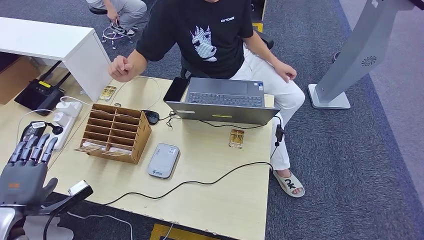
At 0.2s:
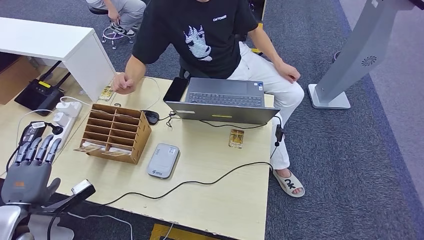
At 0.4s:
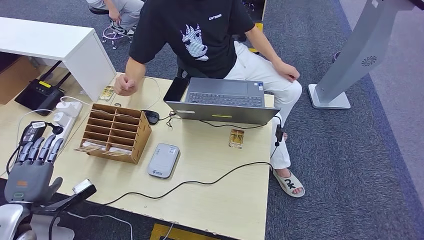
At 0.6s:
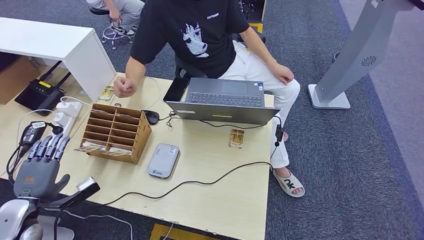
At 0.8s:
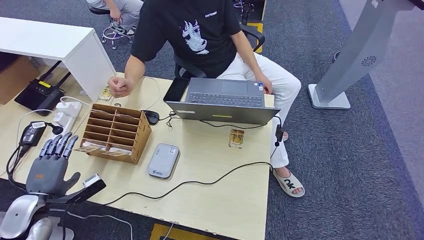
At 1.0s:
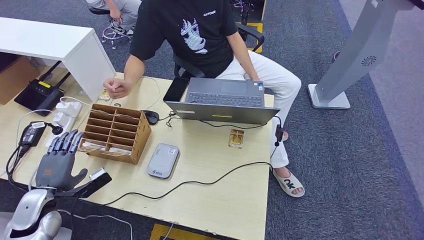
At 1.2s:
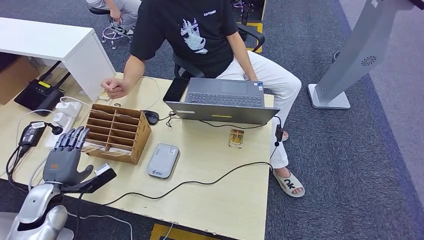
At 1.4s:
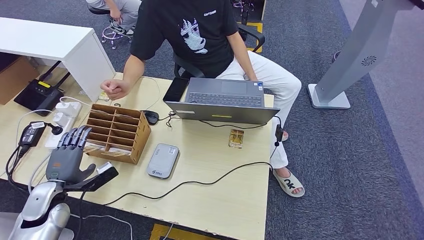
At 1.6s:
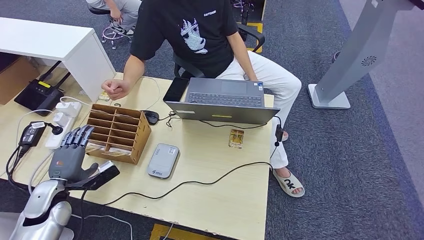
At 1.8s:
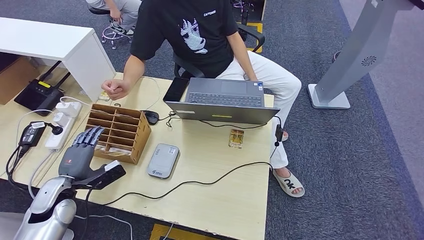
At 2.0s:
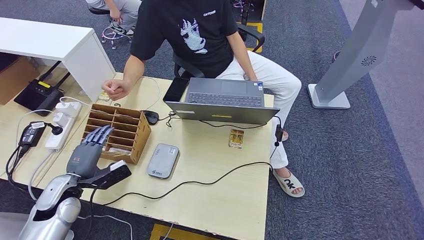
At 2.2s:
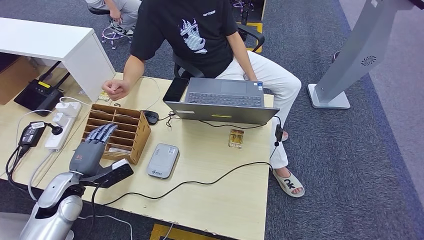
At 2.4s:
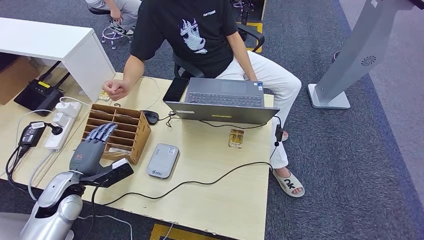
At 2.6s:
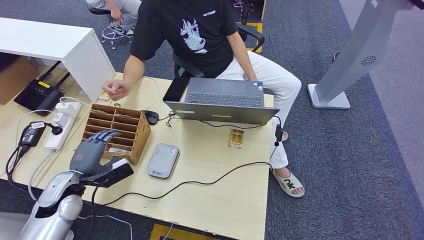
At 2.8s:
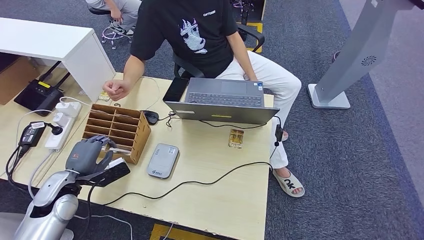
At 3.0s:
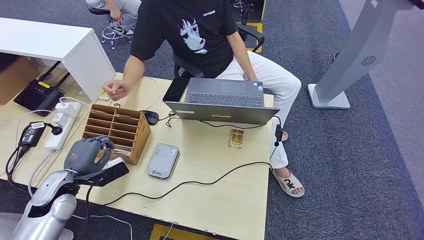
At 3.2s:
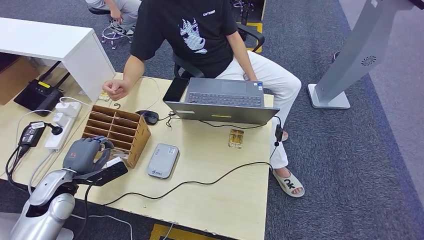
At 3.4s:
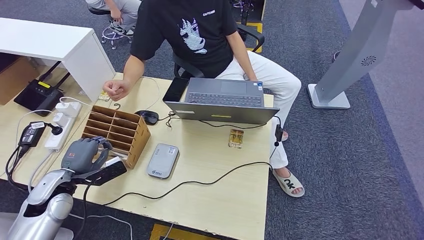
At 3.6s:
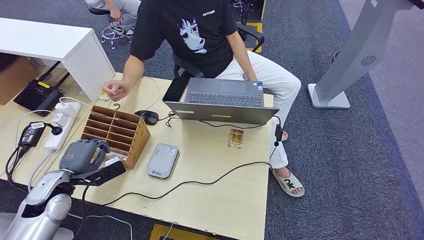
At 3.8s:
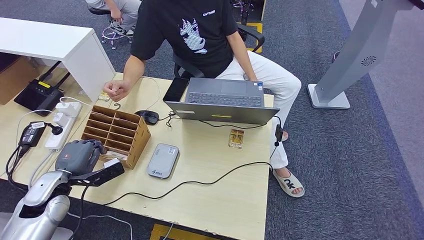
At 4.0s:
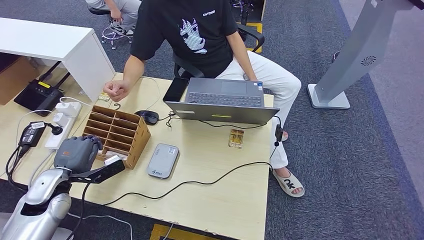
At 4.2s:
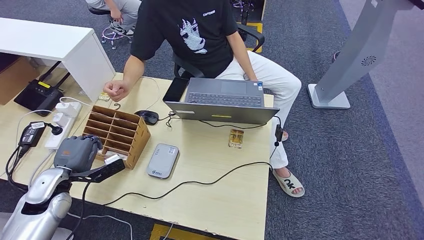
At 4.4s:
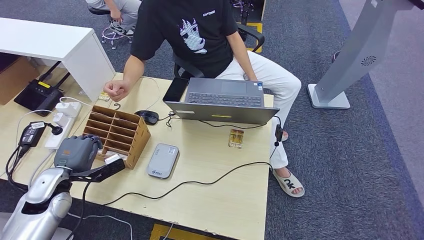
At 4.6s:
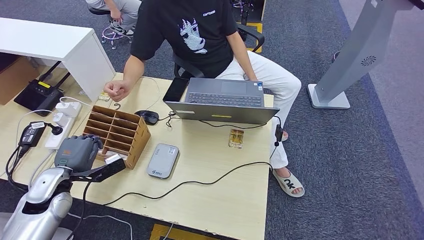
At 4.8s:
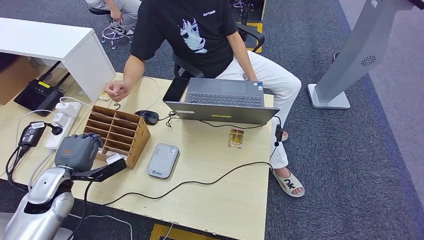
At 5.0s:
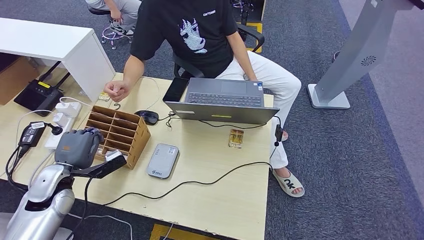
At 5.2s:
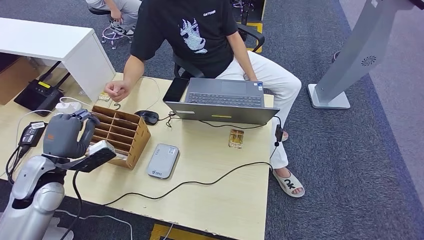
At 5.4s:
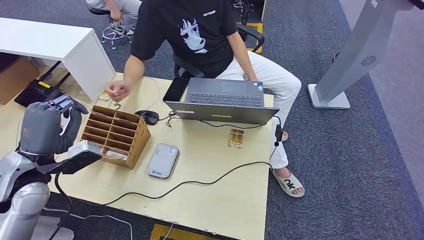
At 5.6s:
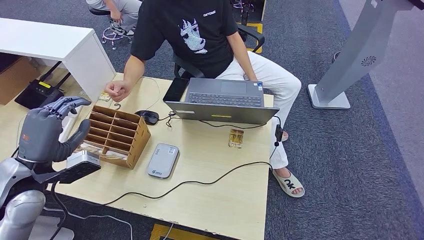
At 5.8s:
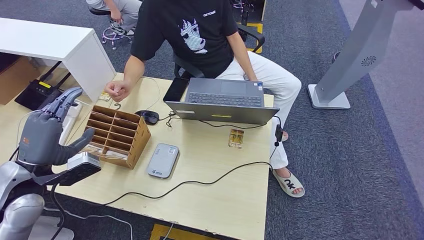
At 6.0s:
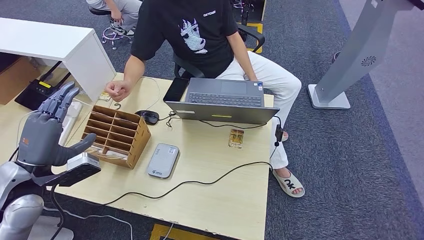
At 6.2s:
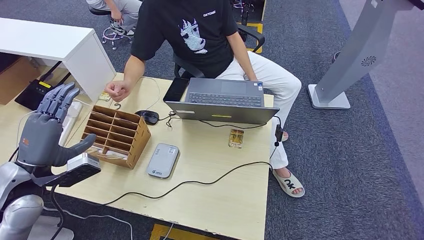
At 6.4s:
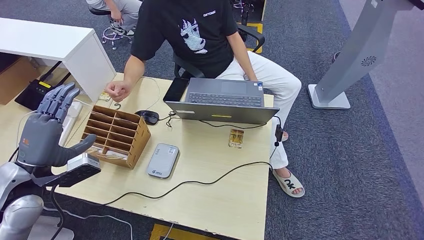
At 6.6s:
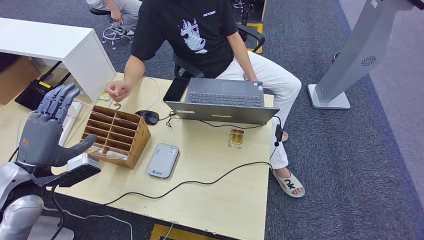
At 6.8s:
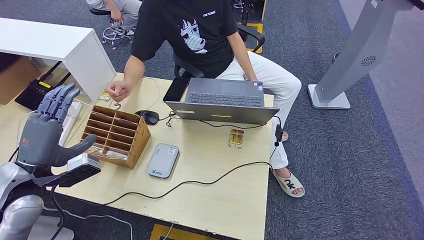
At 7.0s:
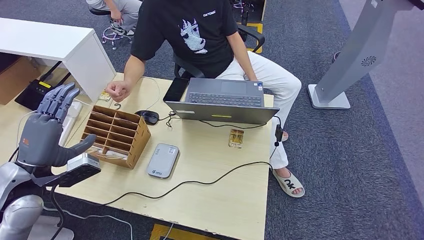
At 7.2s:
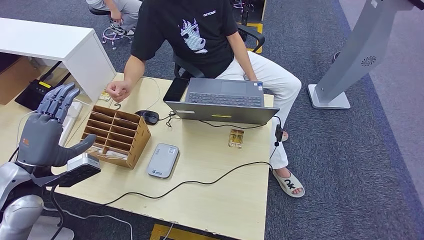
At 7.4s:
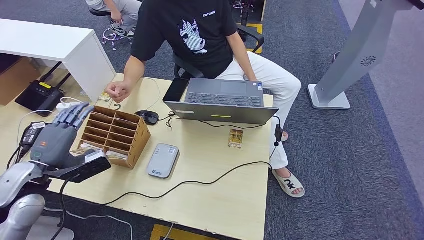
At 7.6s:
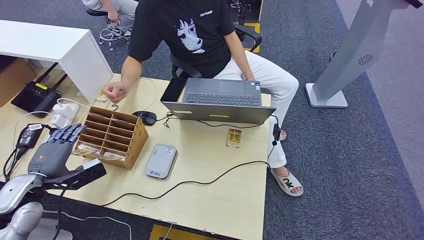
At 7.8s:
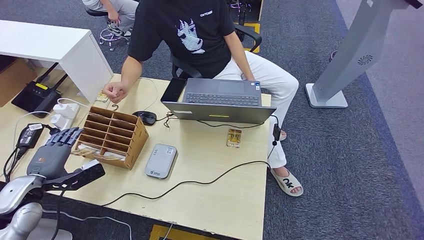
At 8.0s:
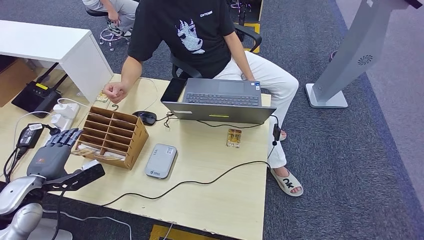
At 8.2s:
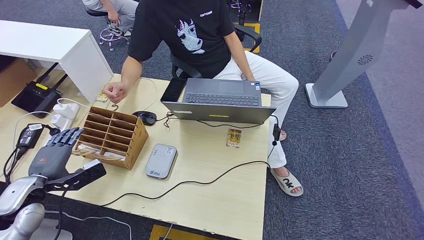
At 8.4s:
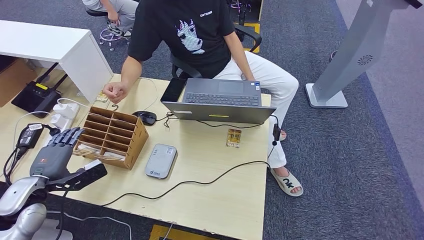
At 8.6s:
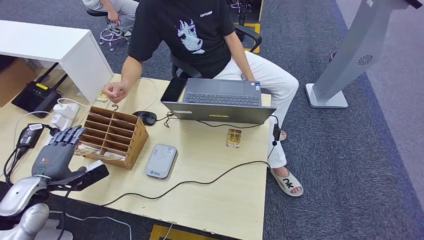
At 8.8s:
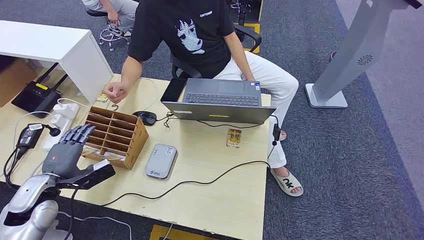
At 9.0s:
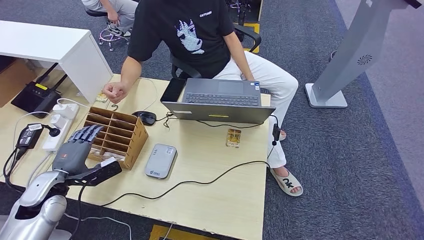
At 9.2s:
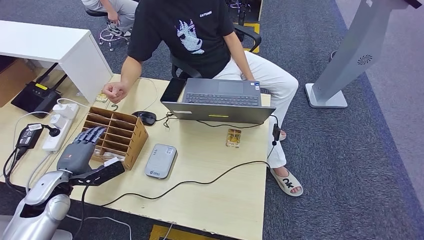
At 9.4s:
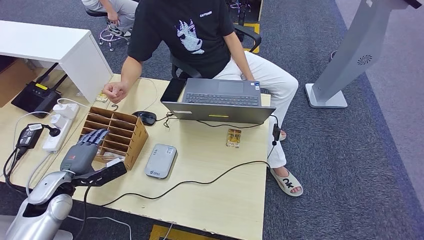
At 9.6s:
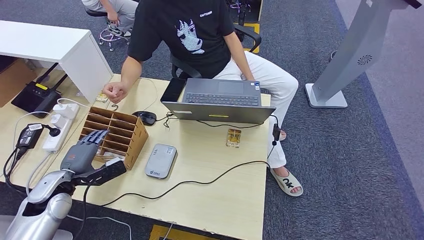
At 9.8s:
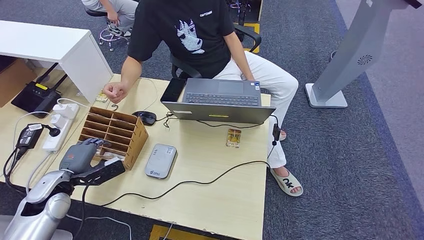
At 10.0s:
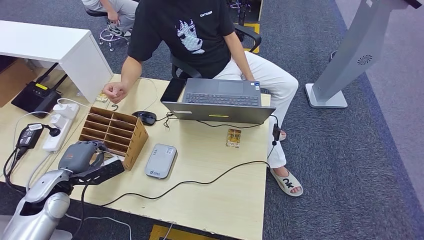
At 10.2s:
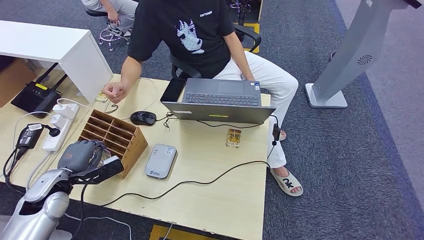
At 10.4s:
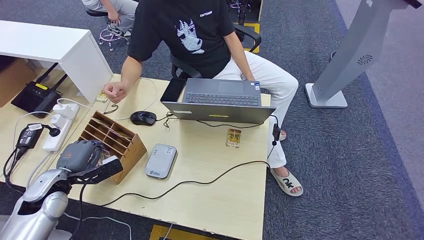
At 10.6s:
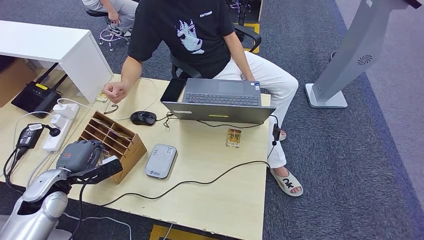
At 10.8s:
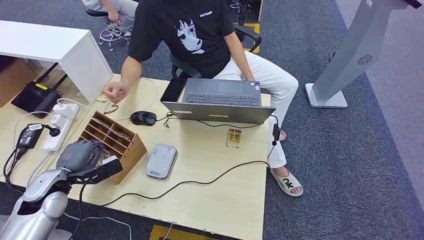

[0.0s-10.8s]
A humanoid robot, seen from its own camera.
0.0s to 1.6s: The left hand heads forward and downward, covering roughly 10 cm.
1.6s to 4.6s: The hands move only a little.
4.6s to 6.2s: The left hand travels upward by some 10 cm.
6.2s to 7.8s: The left hand heads downward and to the left, covering some 10 cm.
7.8s to 9.2s: The left hand shifts by approximately 5 cm.
9.2s to 10.8s: Neither hand changes place.

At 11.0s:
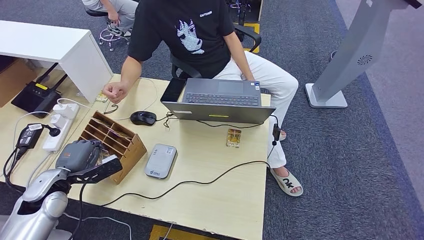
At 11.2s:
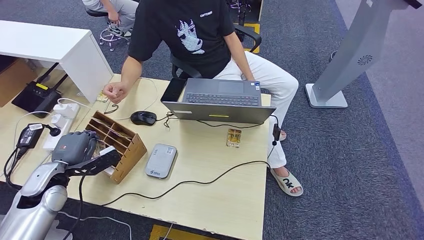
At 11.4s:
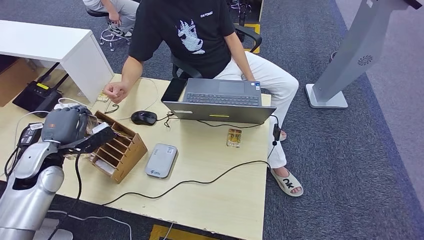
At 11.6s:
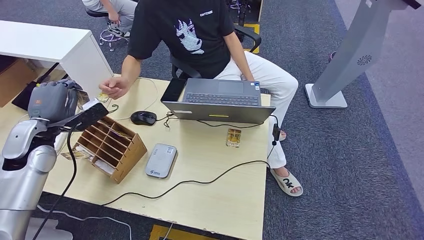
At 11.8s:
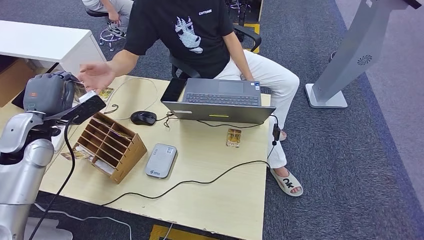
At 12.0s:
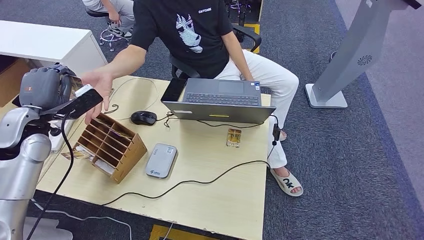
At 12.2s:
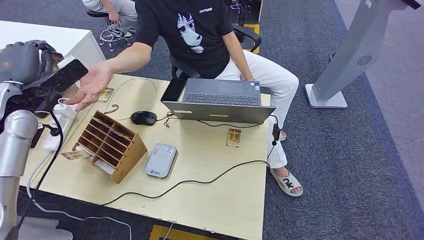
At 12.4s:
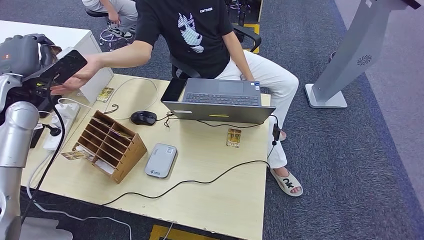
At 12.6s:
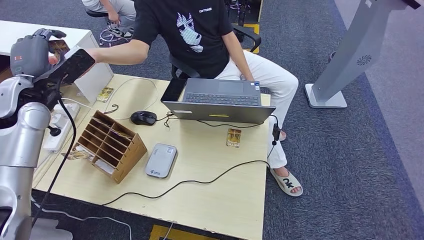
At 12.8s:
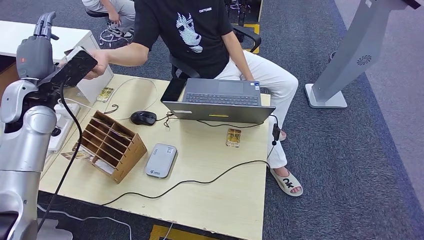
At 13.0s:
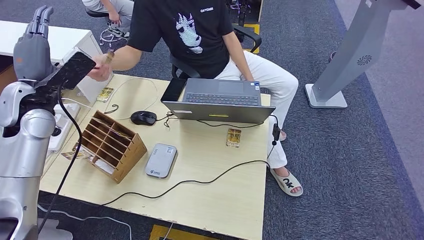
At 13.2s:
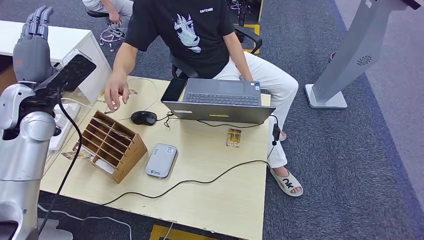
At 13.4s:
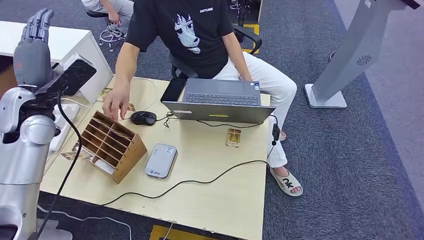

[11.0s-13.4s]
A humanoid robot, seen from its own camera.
Step, 11.4s to 13.2s: Hand the room key to the person.
11.0s to 12.2s: The left hand heads upward and forward, covering some 20 cm.
12.2s to 13.4s: There are only small adjustments of the hands.

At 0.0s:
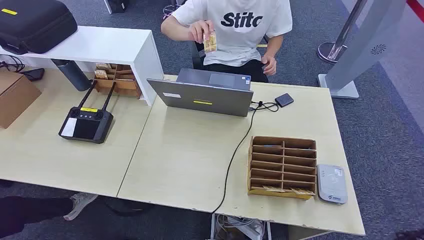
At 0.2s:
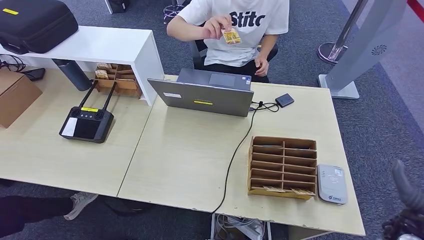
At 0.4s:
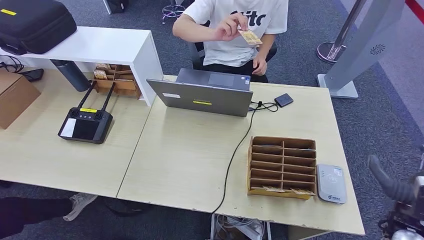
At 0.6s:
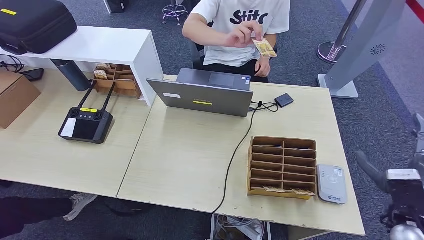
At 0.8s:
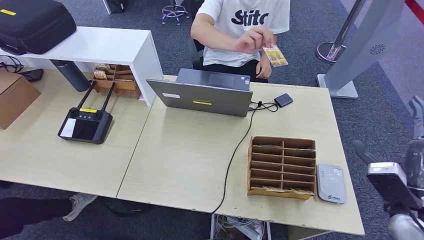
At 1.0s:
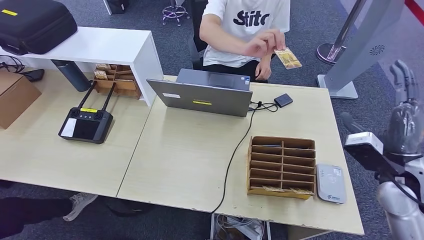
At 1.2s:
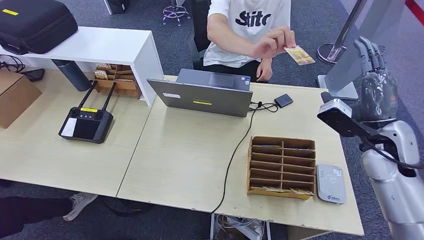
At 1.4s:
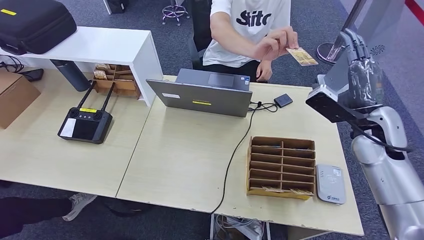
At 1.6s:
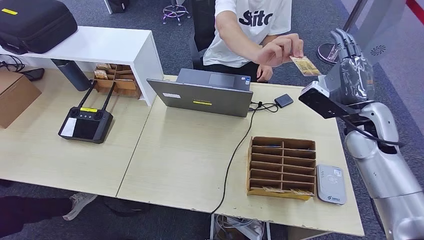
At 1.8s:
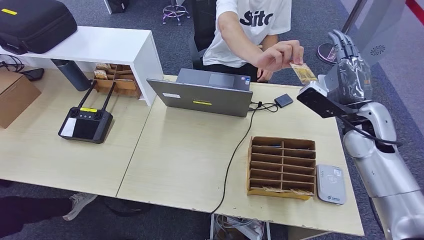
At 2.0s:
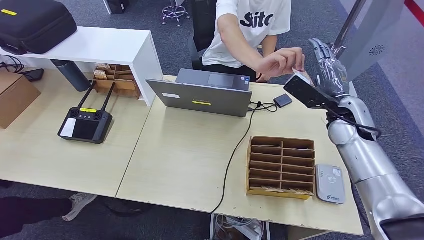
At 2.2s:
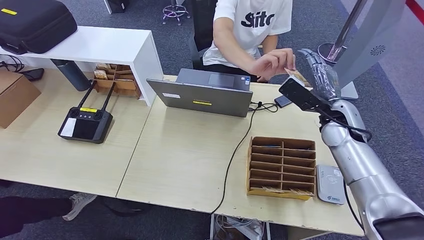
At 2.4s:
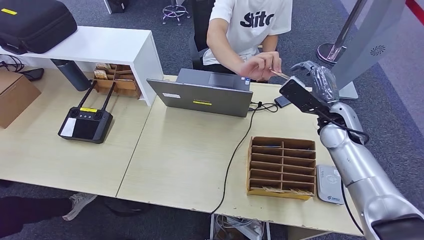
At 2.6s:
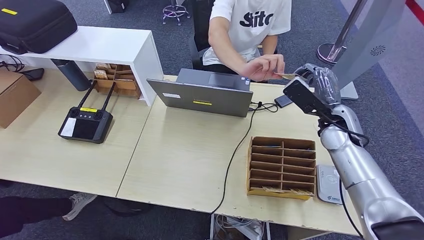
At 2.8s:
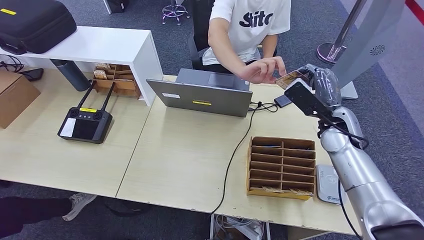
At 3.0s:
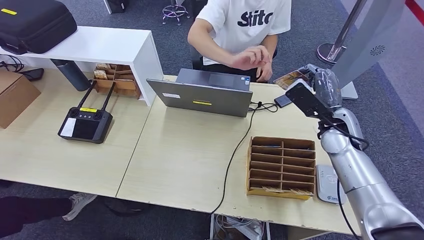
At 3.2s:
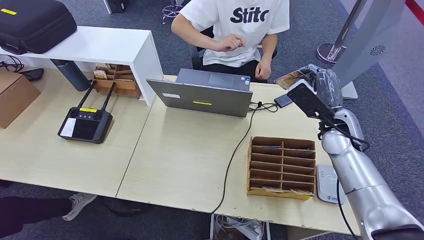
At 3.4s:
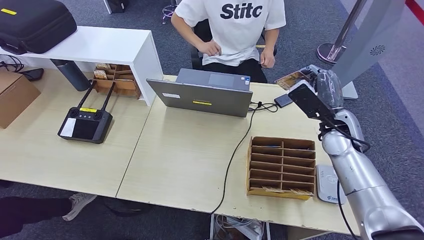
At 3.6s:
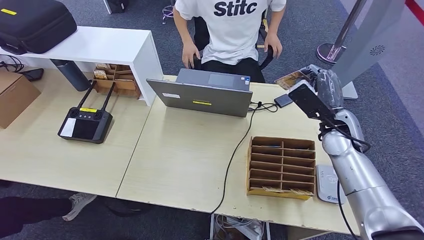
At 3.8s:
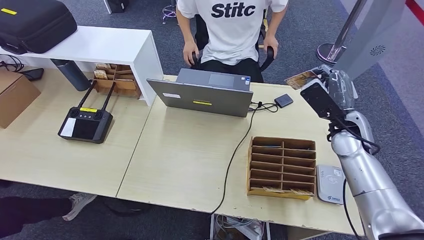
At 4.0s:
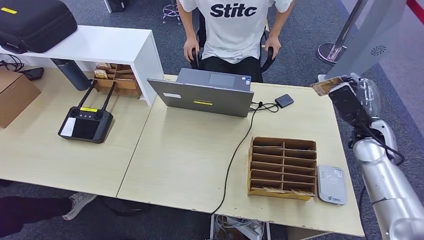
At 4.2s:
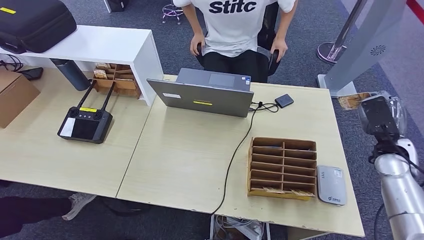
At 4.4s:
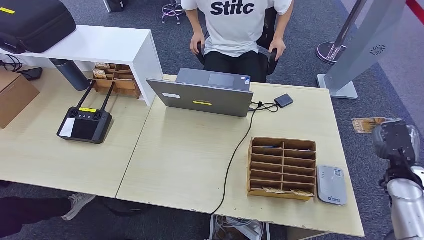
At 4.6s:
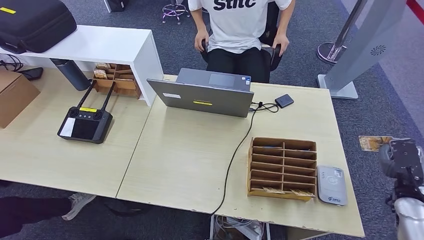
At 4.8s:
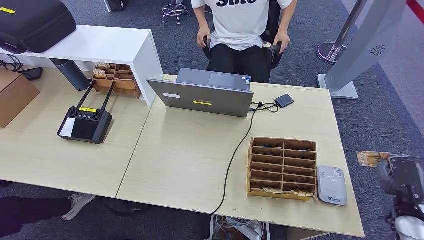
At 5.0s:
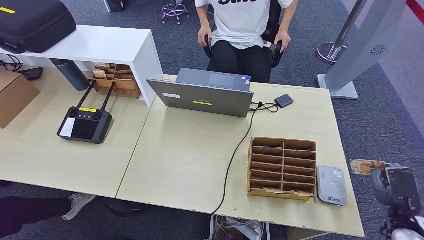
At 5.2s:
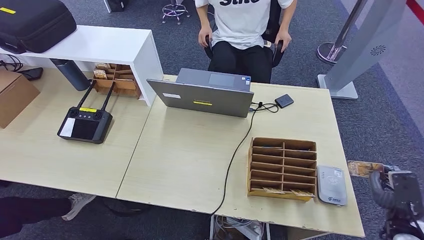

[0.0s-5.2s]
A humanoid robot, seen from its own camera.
Step, 0.0s to 3.4s: Take the ID card from the person's hand.
1.8s to 3.4s: The right hand shifts by approximately 5 cm.
3.4s to 5.2s: The right hand goes roughly 30 cm backward, to the right and downward.
